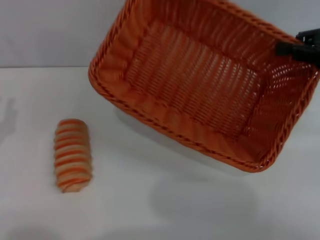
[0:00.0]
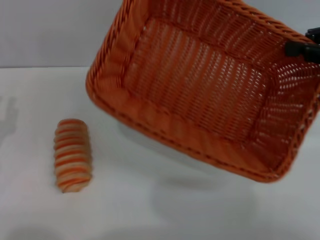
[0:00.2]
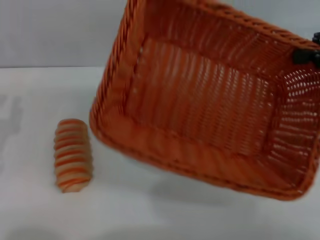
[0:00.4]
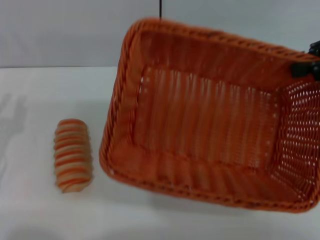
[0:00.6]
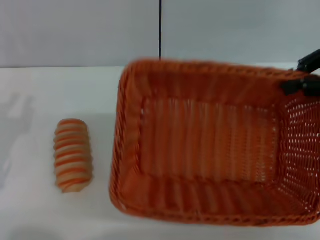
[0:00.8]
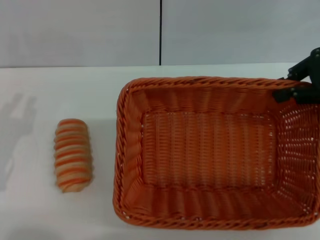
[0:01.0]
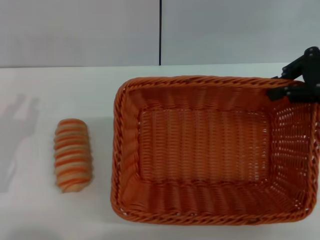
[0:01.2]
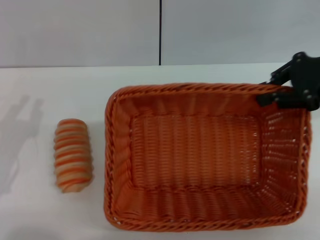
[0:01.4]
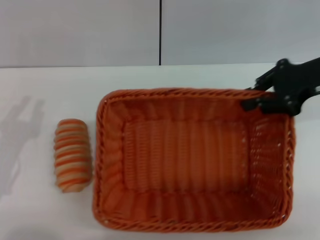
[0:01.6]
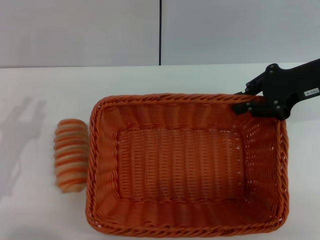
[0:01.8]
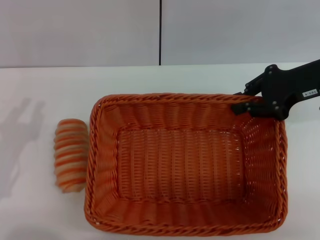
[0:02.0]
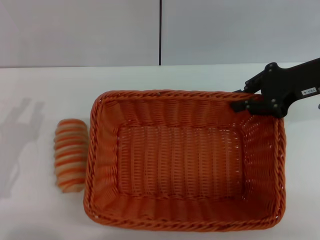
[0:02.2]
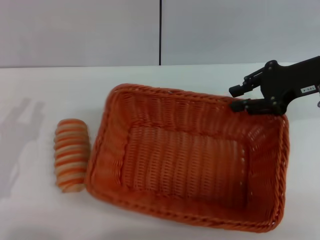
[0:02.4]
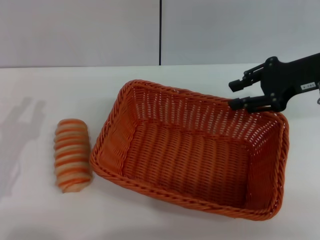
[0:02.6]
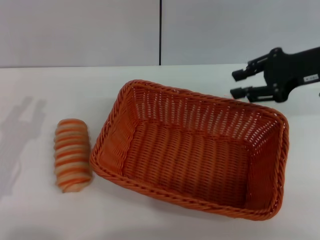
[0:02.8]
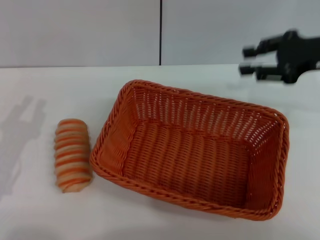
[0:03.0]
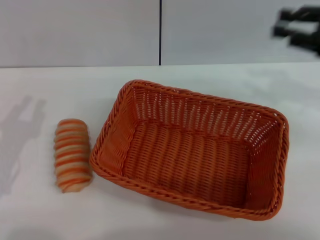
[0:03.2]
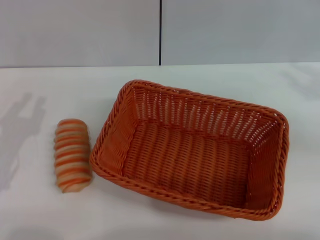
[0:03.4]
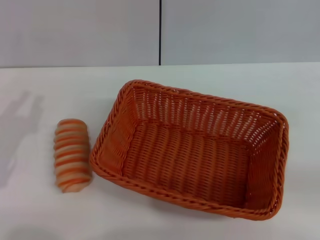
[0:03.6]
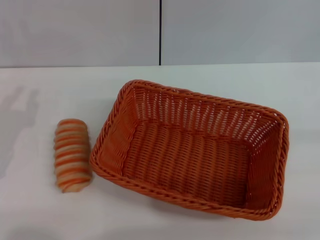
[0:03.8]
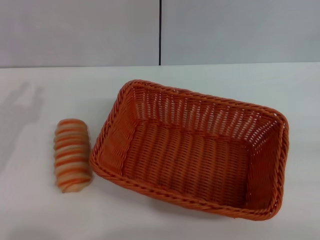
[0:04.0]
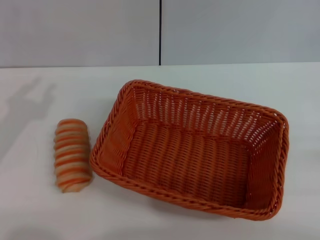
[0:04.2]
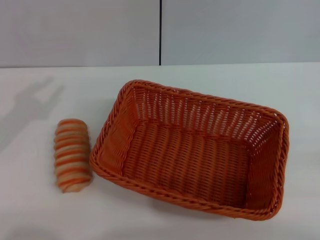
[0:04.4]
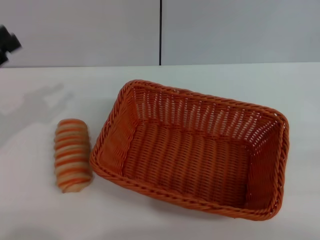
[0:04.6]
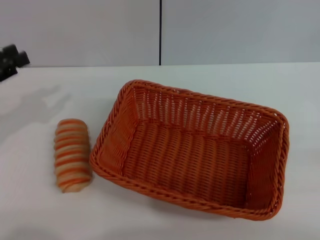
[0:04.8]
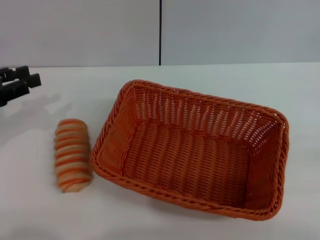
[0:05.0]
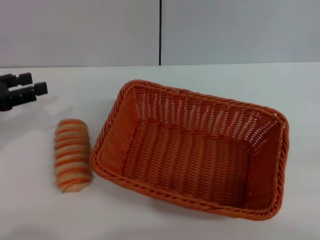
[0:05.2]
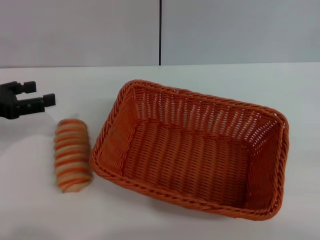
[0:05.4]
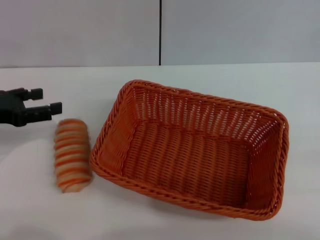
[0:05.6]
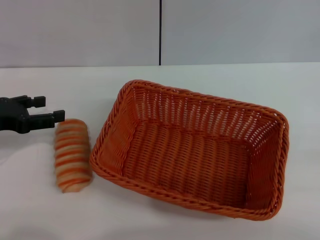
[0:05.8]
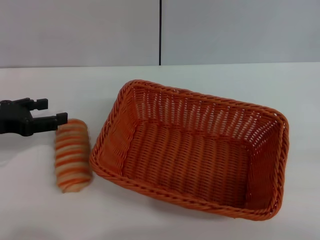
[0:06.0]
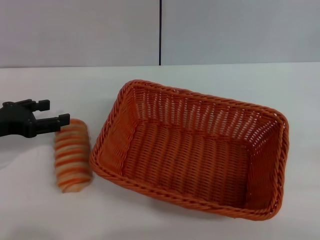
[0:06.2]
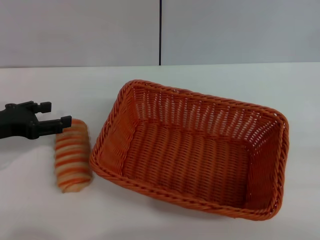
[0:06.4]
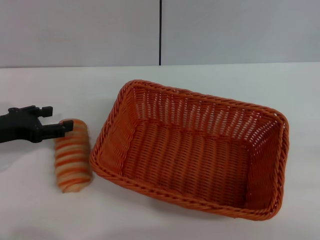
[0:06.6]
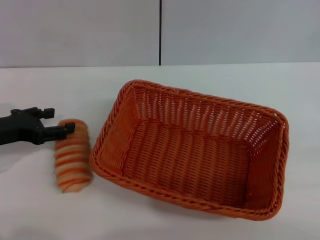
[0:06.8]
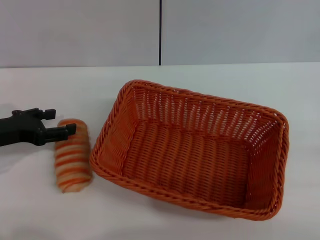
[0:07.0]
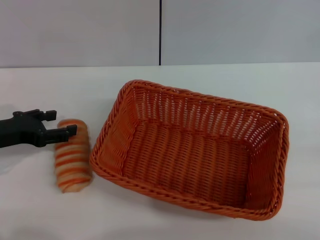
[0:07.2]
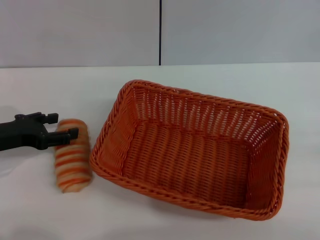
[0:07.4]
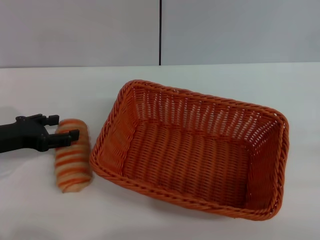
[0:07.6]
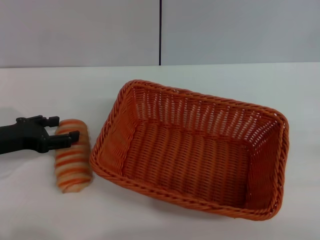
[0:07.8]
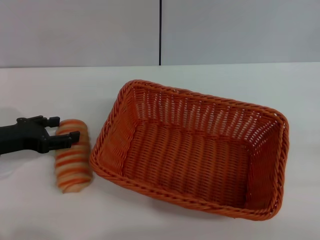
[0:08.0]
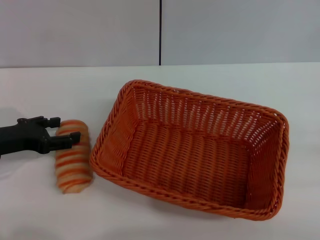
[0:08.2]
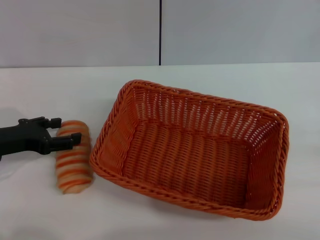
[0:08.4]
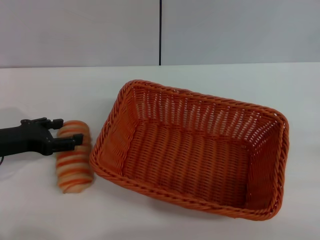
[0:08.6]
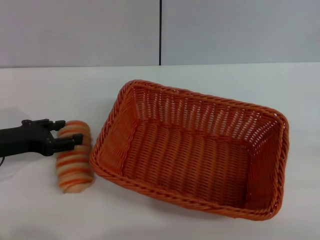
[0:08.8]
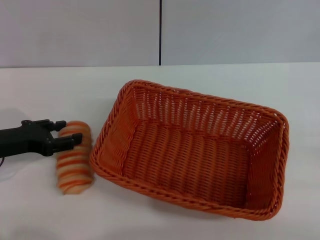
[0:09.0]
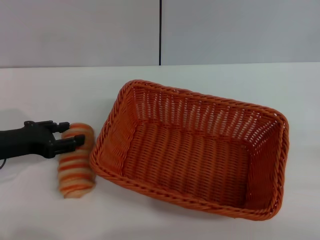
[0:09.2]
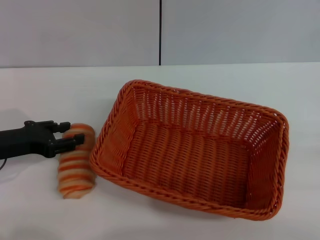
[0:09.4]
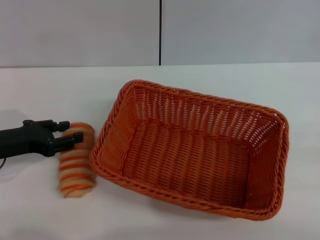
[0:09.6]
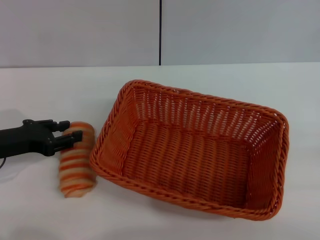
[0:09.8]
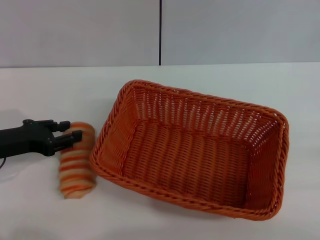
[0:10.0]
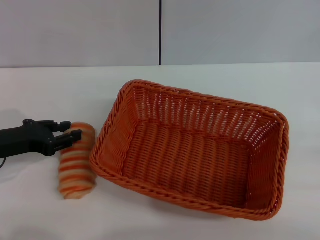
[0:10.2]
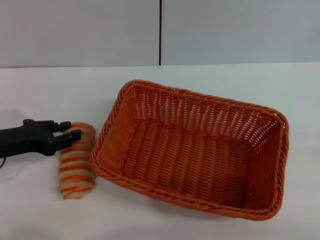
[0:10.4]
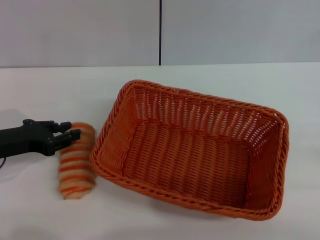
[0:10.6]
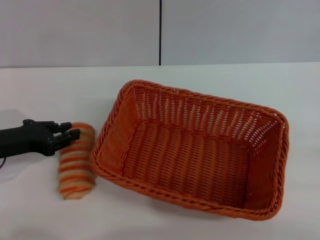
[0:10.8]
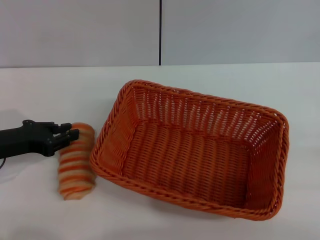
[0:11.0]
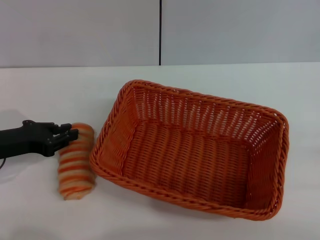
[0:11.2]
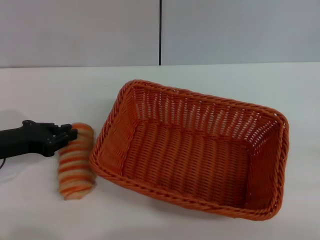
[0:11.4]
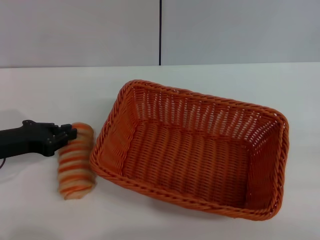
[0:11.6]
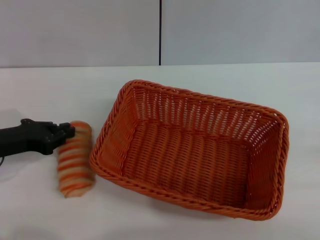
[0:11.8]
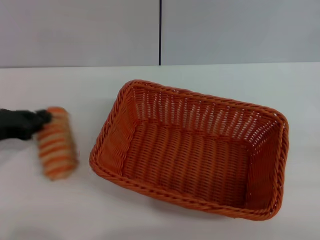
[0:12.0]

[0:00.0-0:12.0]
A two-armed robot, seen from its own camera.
Step, 0:00.6 to 0:02.6: Place the light basket in the center of view with the left gripper.
0:00.0 to 0:01.6: The right gripper is displaced to the left by about 5 cm.
0:01.6 to 0:03.0: The right gripper opens its fingers.
0:03.0 to 0:04.4: The right gripper shifts roughly 30 cm backward, to the right and downward.
0:04.4 to 0:06.0: The left gripper opens up.
0:06.0 to 0:07.6: The grippers move only a little.
0:07.6 to 0:09.0: Both grippers stay about where they are.
0:09.0 to 0:10.4: The left gripper closes its fingers.
0:10.4 to 0:12.0: The left gripper closes up.

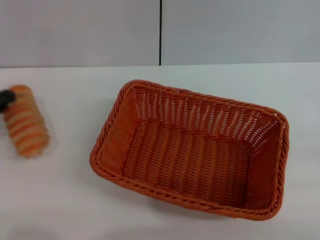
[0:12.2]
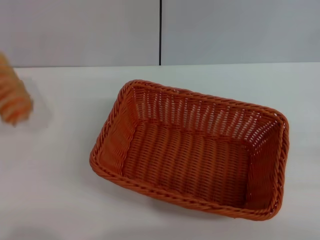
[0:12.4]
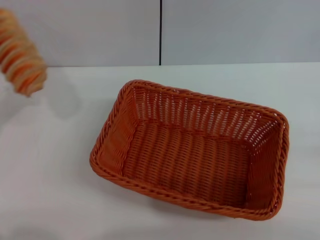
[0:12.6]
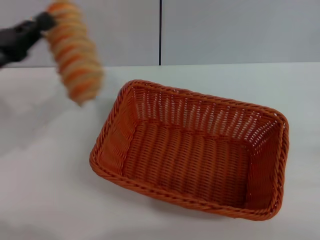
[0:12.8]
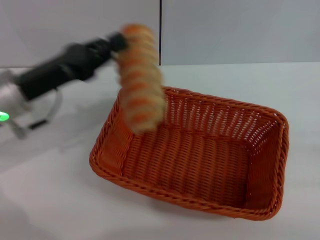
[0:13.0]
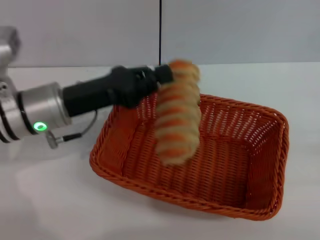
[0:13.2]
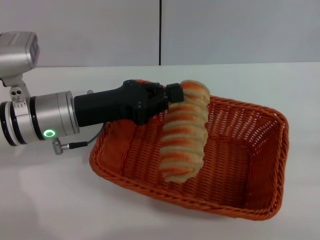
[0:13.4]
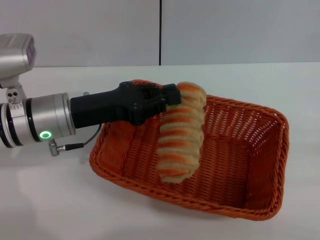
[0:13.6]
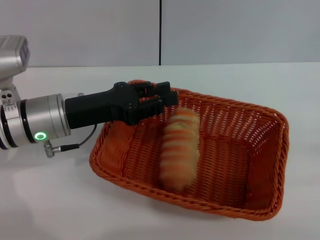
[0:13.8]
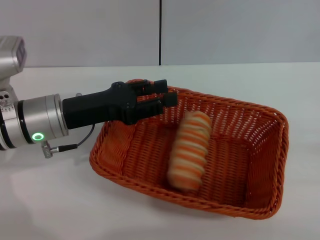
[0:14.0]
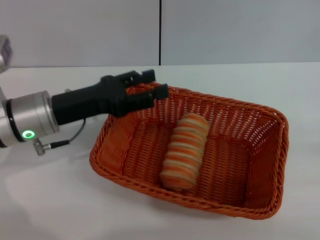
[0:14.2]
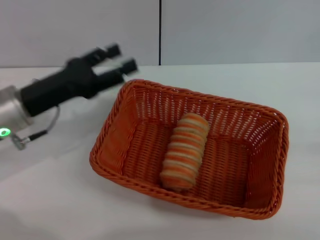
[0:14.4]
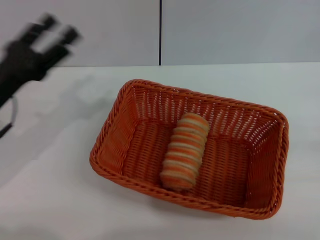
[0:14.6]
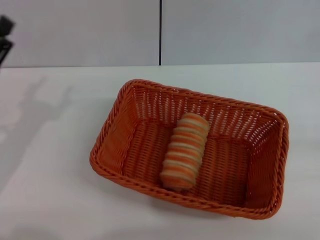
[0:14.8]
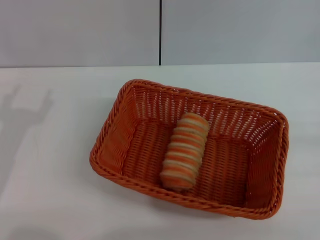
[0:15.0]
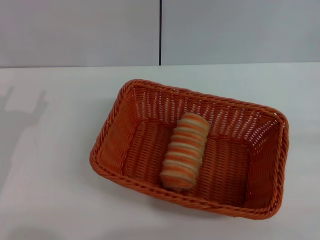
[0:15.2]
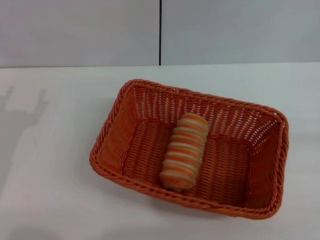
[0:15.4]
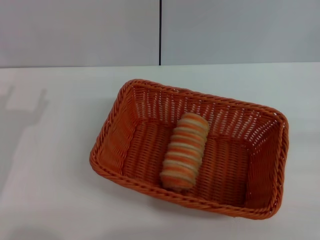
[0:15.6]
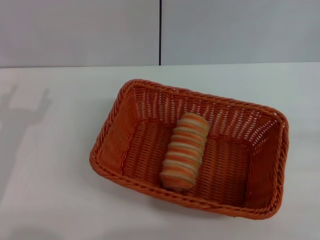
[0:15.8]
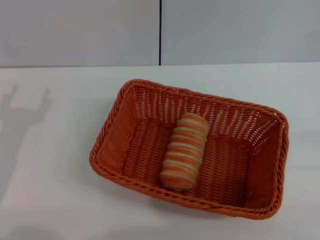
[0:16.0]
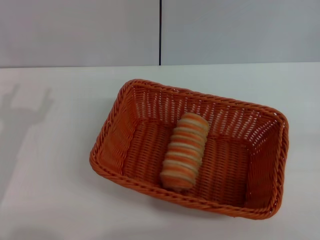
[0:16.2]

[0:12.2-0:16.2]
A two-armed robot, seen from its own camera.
0:12.2 to 0:13.6: The left gripper travels to the right by about 20 cm.
0:13.6 to 0:14.8: The left gripper travels to the left and backward by approximately 15 cm, and opens its fingers.

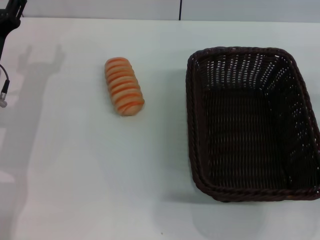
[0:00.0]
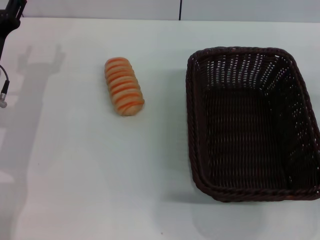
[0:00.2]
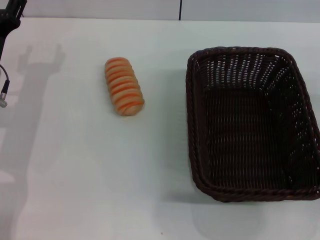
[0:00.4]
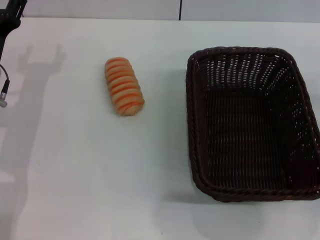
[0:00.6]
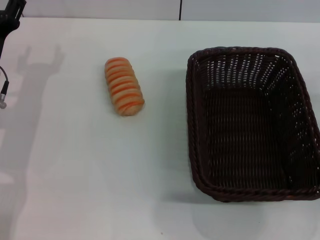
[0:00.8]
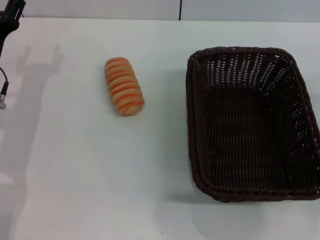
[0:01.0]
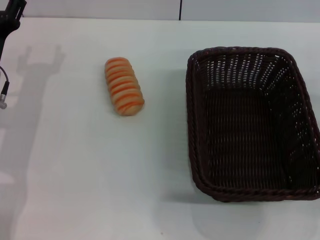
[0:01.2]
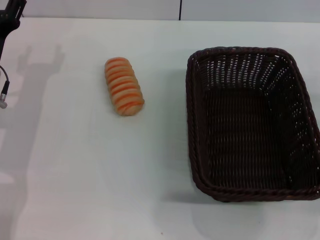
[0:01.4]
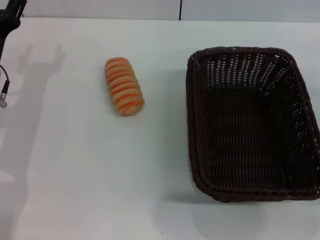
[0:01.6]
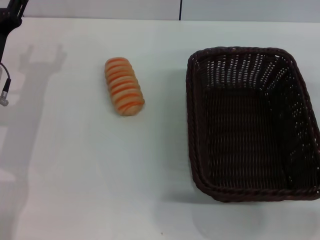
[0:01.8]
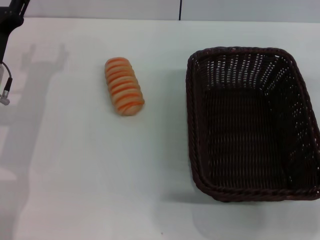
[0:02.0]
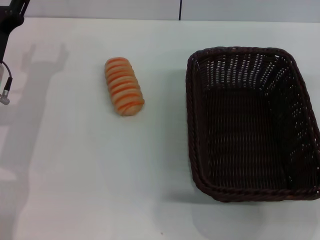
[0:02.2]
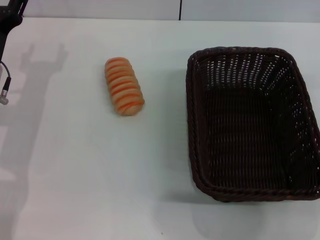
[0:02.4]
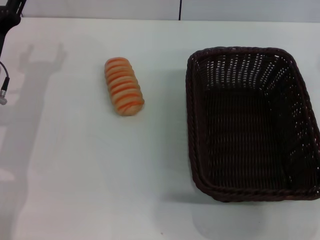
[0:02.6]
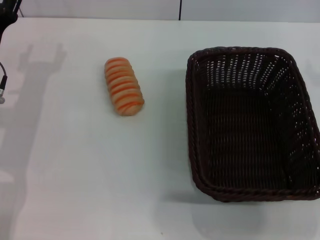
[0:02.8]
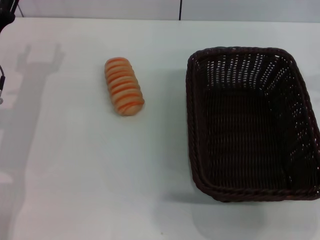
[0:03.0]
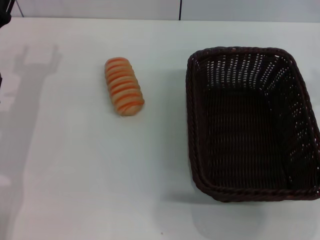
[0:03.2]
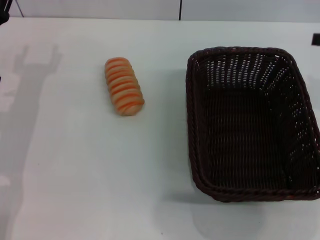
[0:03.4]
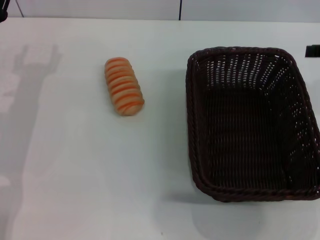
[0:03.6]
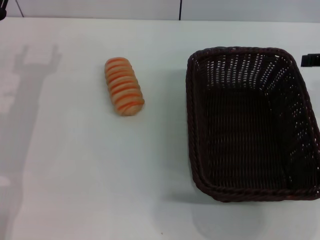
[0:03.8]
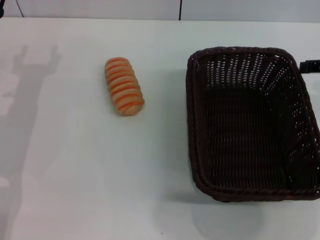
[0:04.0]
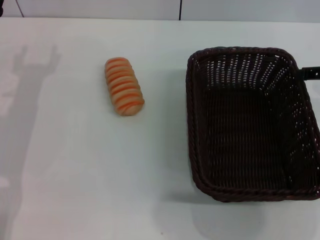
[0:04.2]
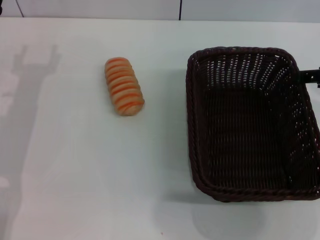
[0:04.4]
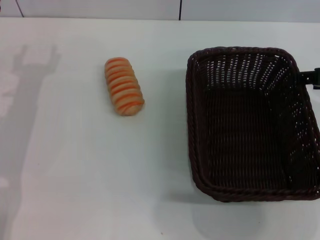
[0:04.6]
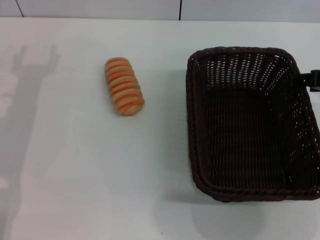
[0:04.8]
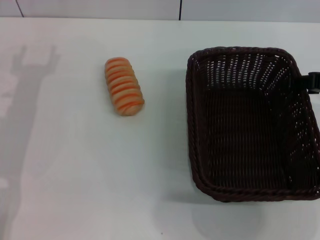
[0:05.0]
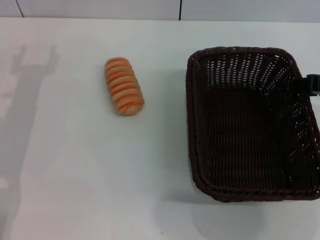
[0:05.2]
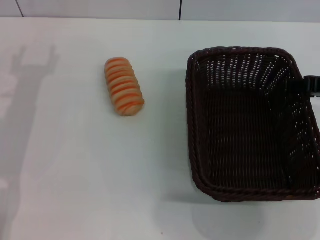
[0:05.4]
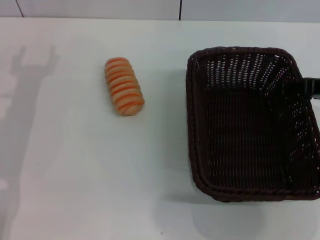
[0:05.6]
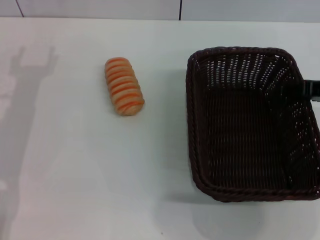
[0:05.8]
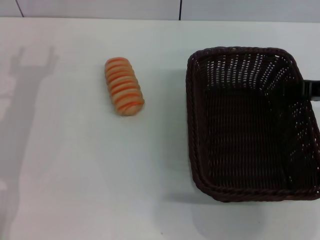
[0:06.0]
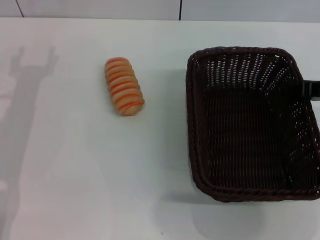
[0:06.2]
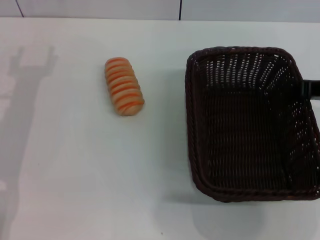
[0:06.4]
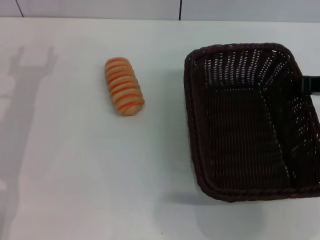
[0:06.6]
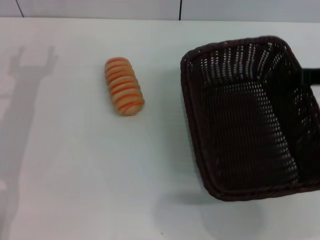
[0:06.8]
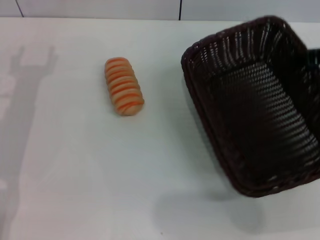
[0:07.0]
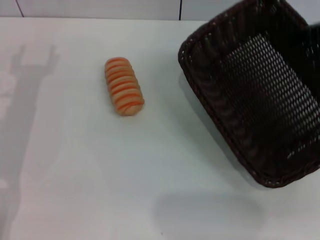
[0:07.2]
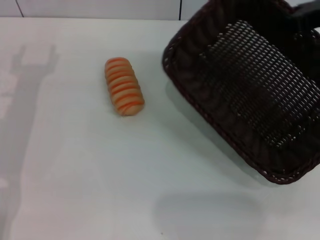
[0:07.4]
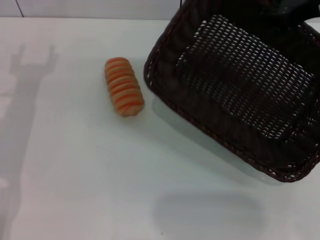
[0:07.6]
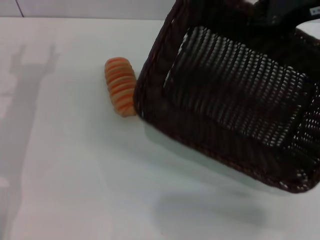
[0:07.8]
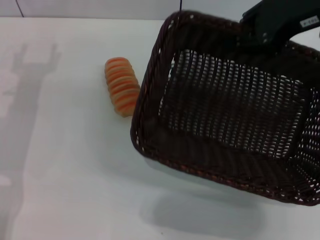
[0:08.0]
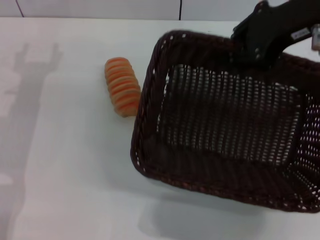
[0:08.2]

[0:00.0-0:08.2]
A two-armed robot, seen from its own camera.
Step, 0:00.0 to 0:07.0: Pick up the dark basket with the right gripper.
0:05.0 to 0:06.6: The right gripper closes its fingers.
0:06.6 to 0:08.2: The right gripper is displaced upward and to the left by roughly 15 cm.
